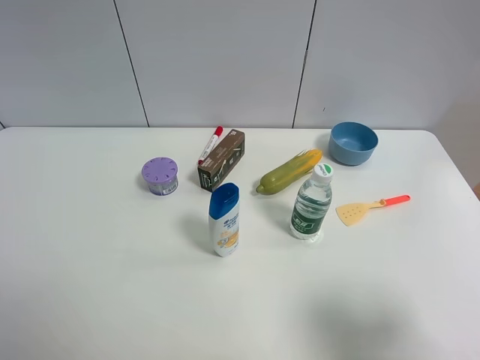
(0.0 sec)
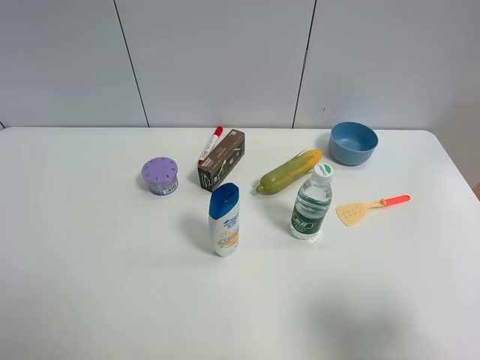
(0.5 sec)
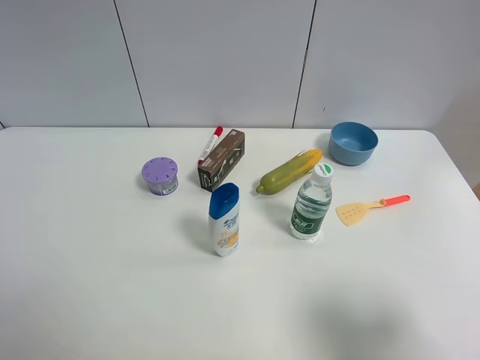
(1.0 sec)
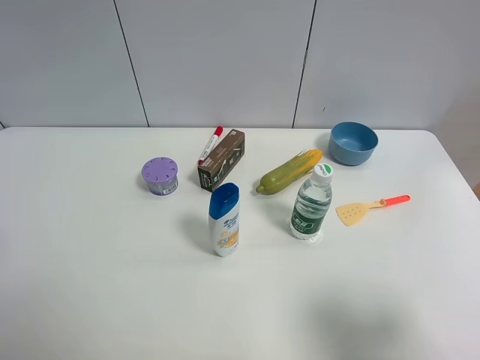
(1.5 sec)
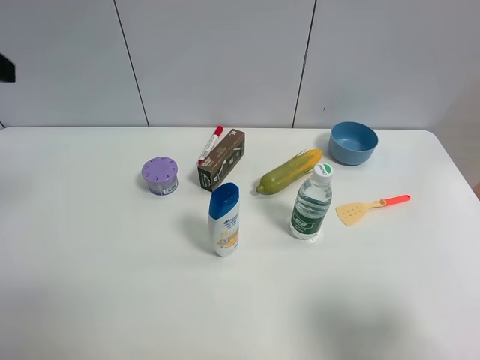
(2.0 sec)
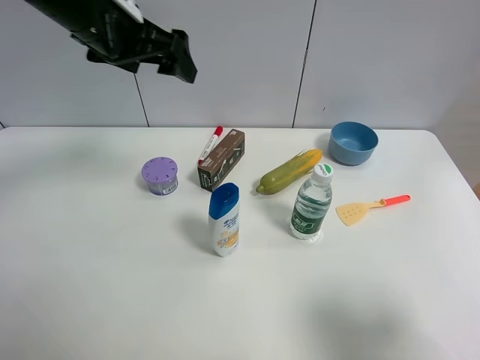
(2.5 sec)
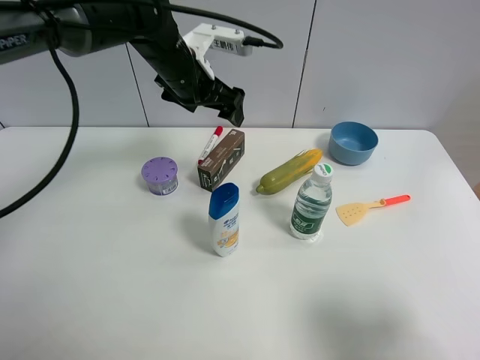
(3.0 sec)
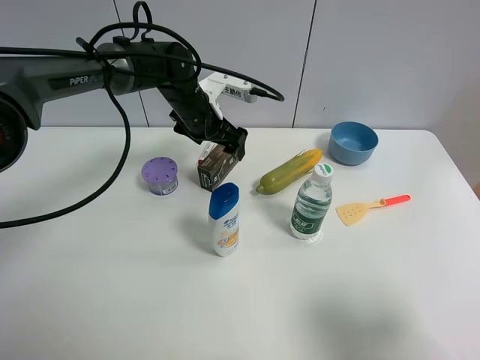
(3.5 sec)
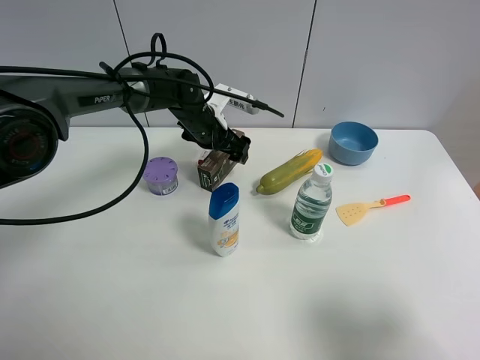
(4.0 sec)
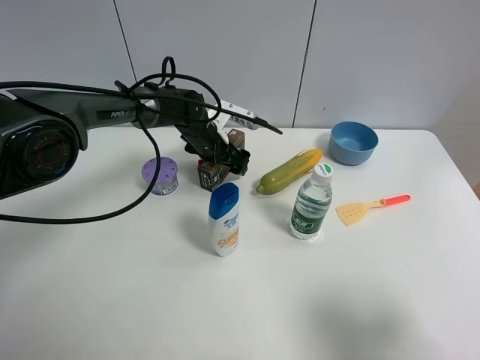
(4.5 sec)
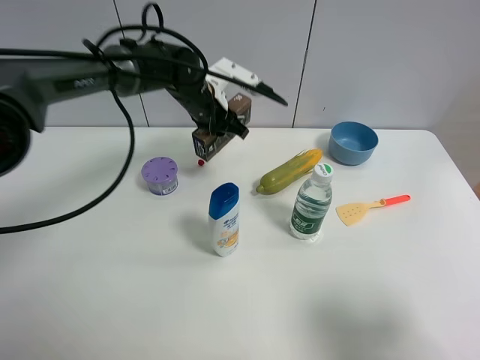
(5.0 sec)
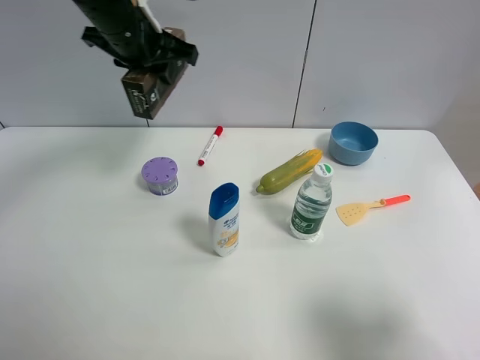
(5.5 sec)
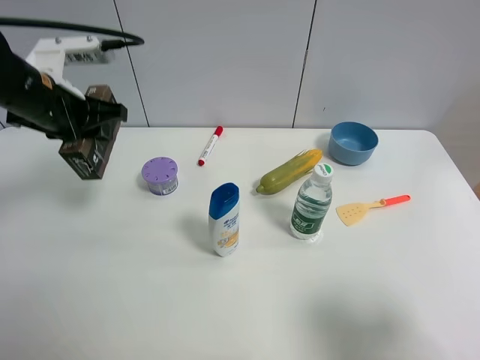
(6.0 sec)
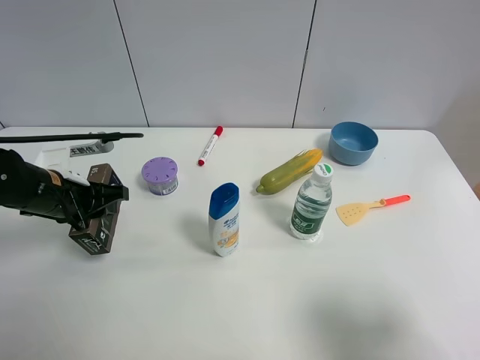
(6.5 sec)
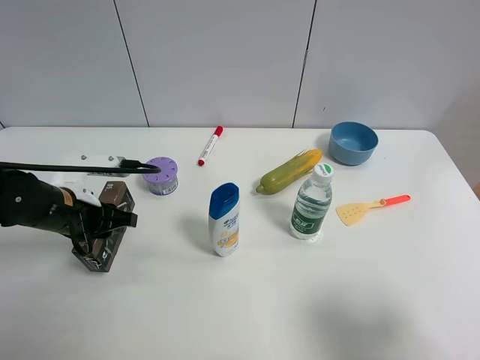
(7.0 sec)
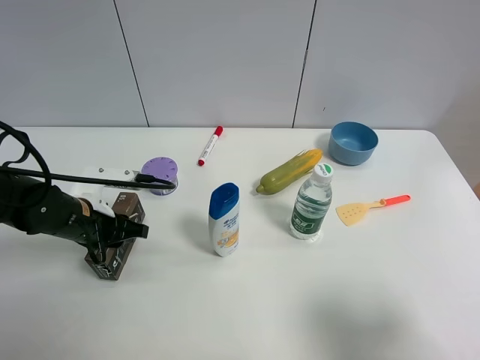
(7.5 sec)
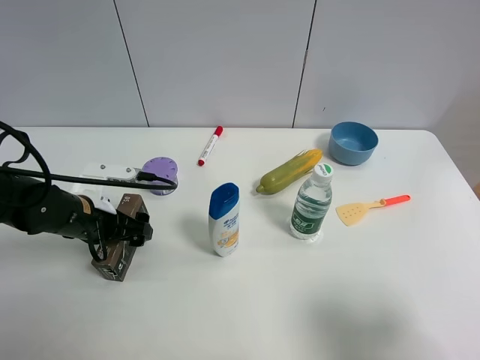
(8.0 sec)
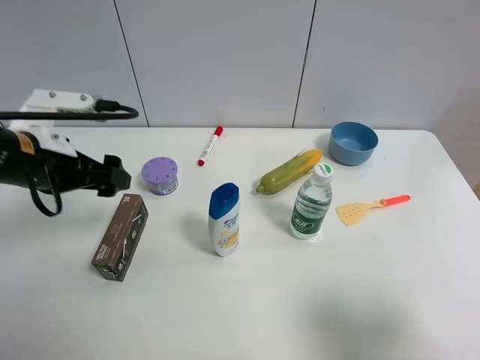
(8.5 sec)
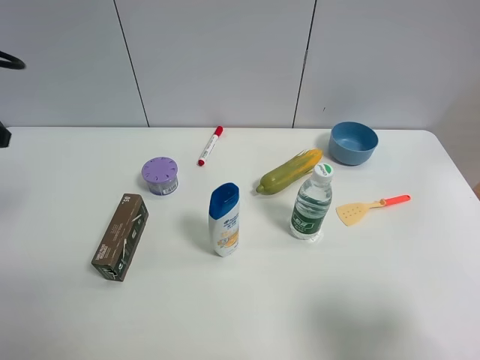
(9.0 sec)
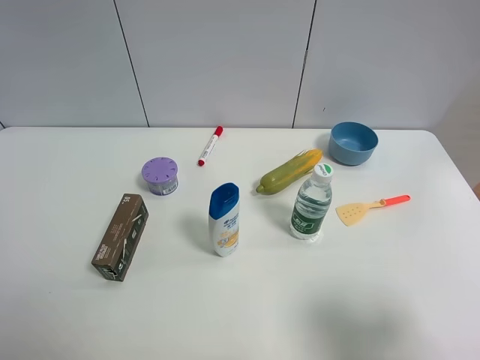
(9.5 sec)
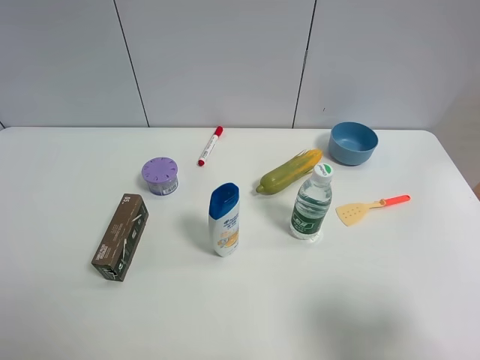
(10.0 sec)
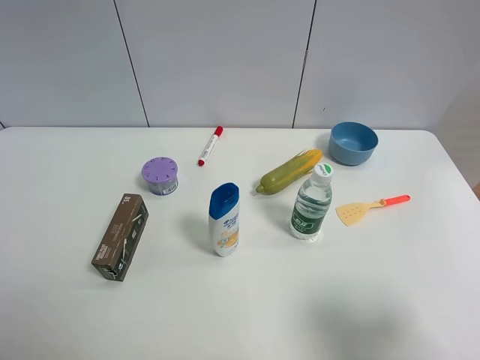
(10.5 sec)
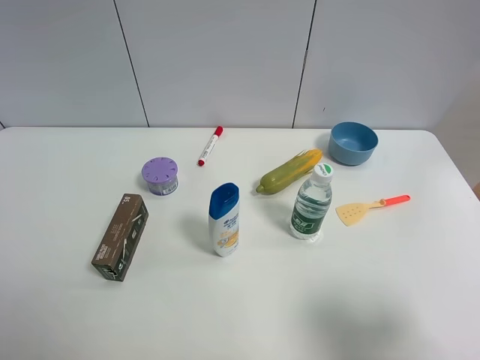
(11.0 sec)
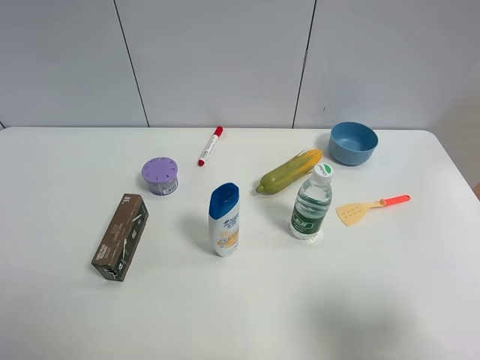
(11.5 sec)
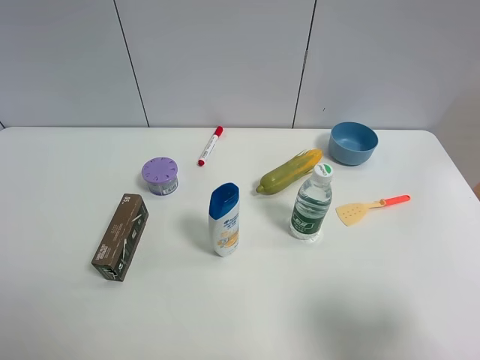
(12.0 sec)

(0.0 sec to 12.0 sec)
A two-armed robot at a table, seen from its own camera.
Task of the whole recording: the gripper move the object.
Step, 0.0 sec - 4.5 sec: Grasp the brown box with the left gripper.
Step, 5.0 sec - 7.5 sec: Place the brown box on the table with the left gripper.
2.0 sec - 4.0 sec: The left gripper heads downward, to the right and forward, covering approximately 40 cm.
4.0 sec - 6.0 sec: The left gripper moves to the left, backward and upward, roughly 25 cm, and closes its fingers.
6.0 sec - 8.0 sec: The left gripper heads downward and backward, covering approximately 15 cm, and opens.
8.0 sec - 10.0 sec: The left gripper shifts roughly 40 cm backward and upward.

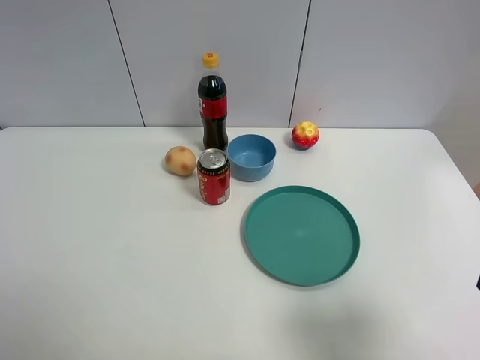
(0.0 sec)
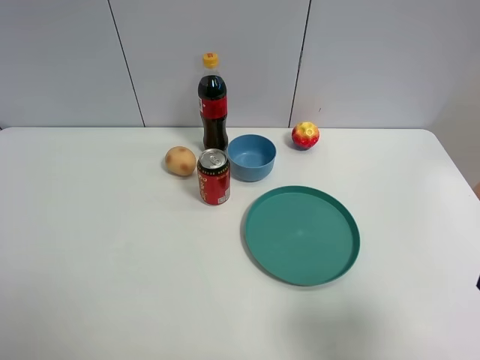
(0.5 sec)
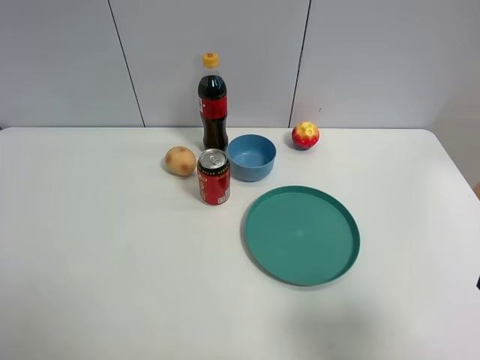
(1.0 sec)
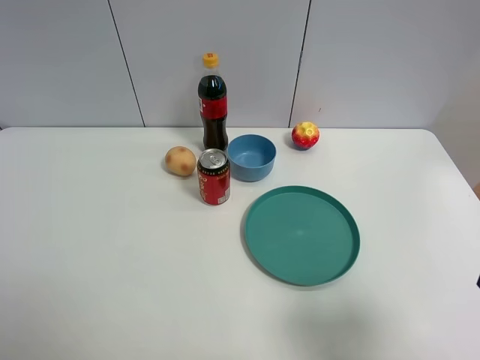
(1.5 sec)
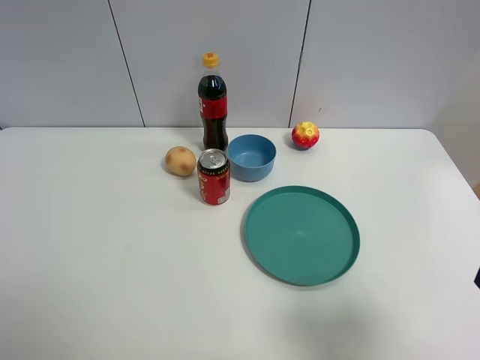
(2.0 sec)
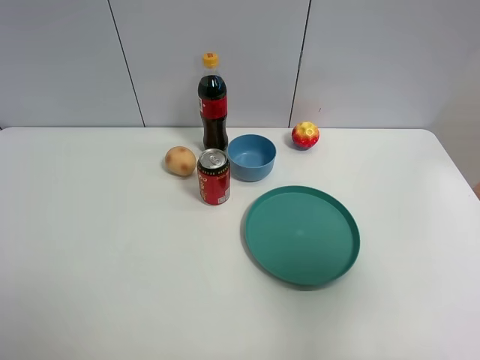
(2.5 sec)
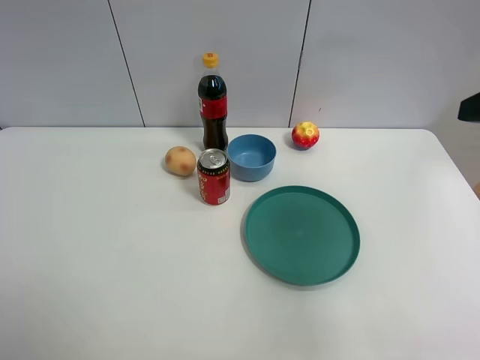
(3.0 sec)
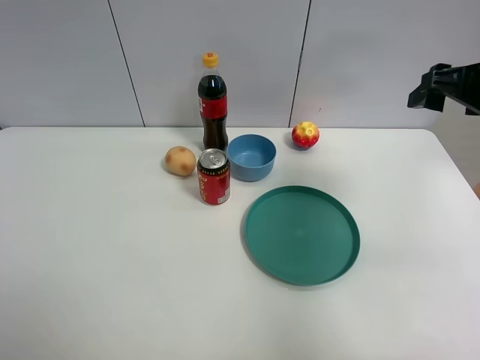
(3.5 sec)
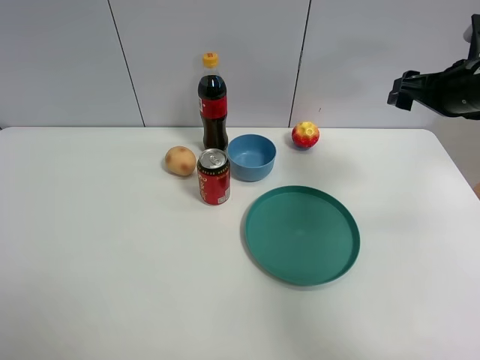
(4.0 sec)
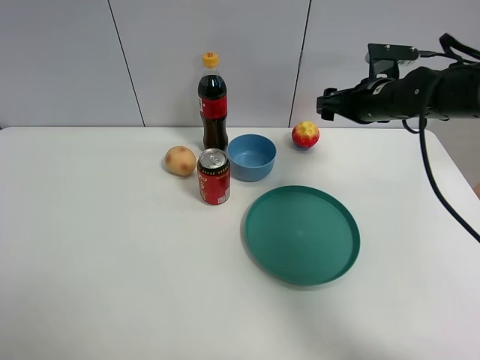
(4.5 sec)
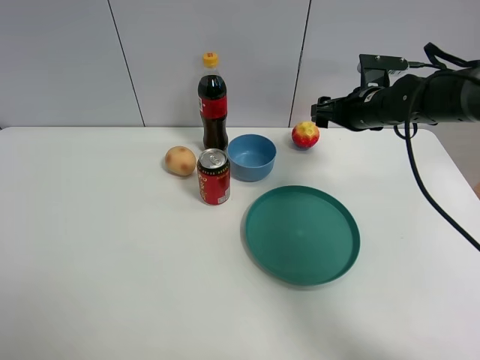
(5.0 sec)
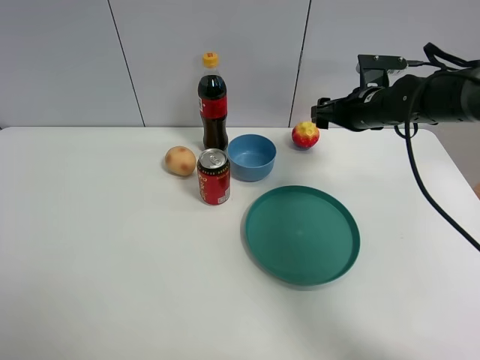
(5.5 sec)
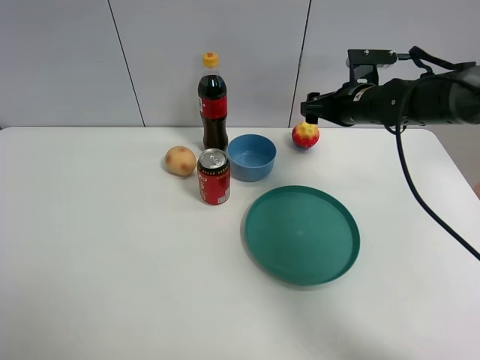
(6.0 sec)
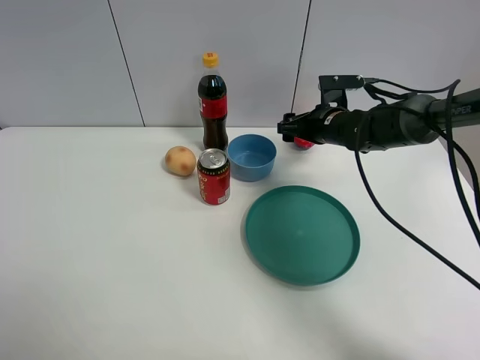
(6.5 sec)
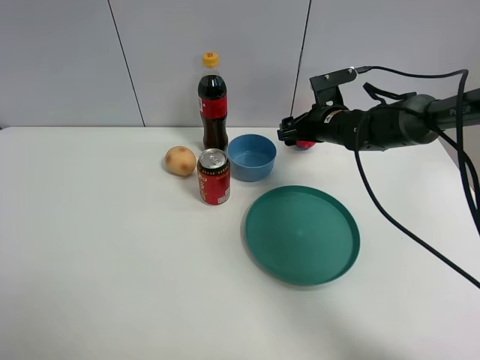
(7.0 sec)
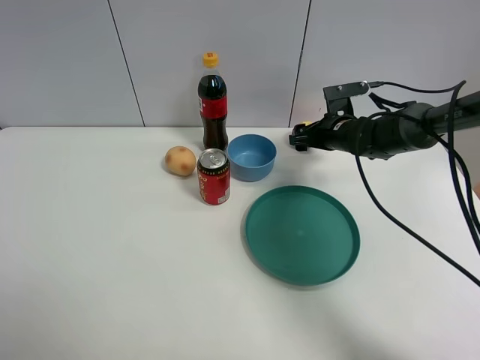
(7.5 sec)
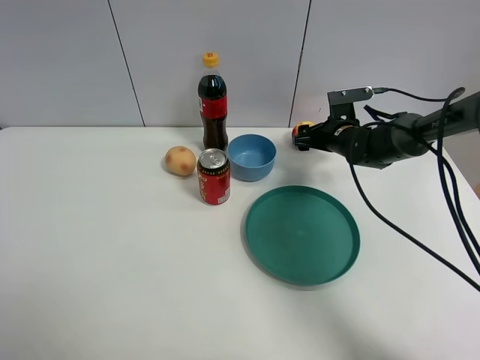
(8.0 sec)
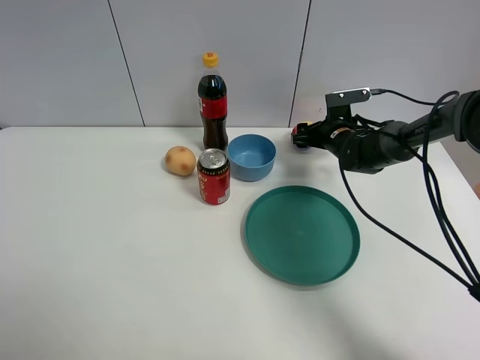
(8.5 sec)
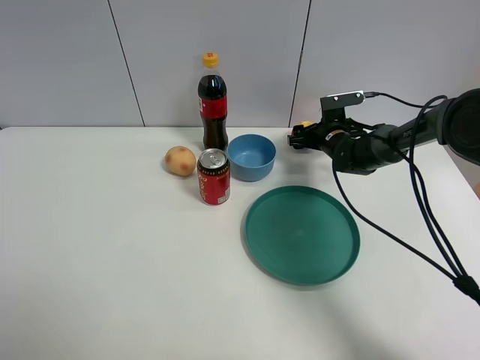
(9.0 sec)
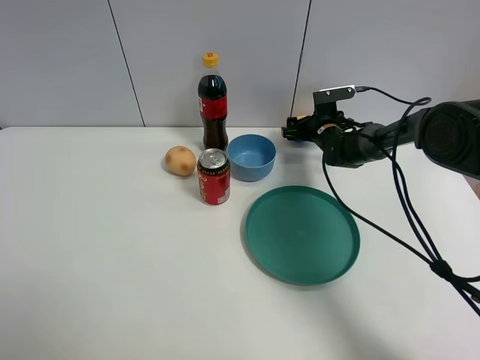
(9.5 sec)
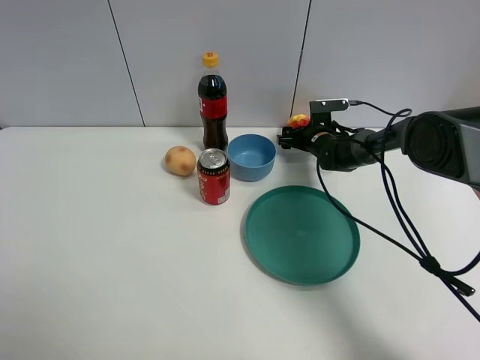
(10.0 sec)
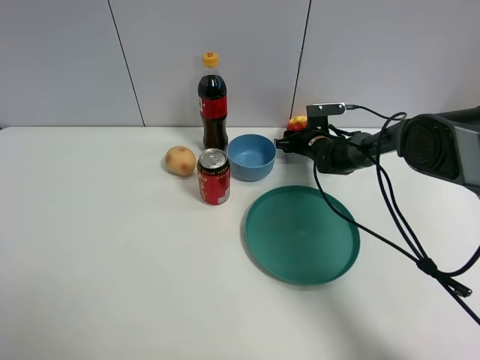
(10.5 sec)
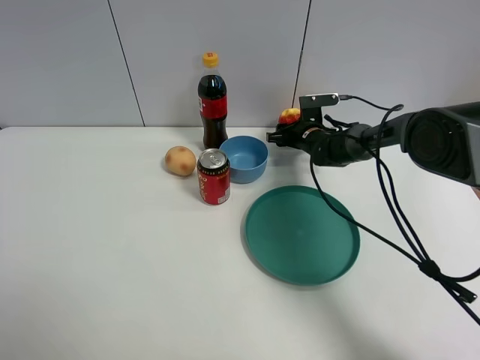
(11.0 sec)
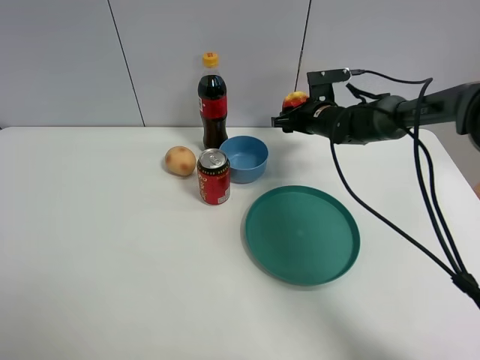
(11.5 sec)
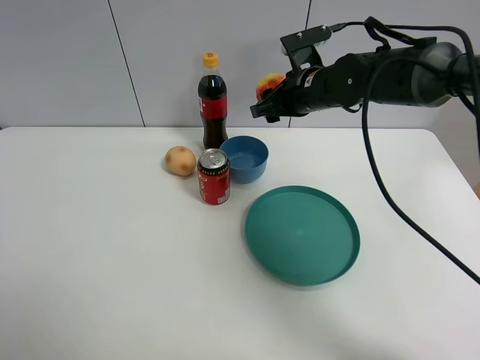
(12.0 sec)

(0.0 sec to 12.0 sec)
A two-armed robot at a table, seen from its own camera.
Task of the whole recording: the gripper move the object.
Step, 0.0 sec - 10.0 sec: Grasp the colorful ball with the right gripper.
0.0 sec - 2.0 sec: Neither gripper changes place.
2.0 sec - 4.0 sec: The right gripper shifts approximately 35 cm forward.
4.0 sec - 6.0 sec: The right gripper heads to the left, downward and forward, covering roughly 15 cm.
6.0 sec - 8.0 sec: The right gripper goes some 10 cm downward.
8.0 sec - 10.0 sec: The right gripper moves downward and forward, roughly 10 cm.
10.0 sec - 12.0 sec: The right gripper is displaced upward and backward by about 20 cm, and closes its fingers.

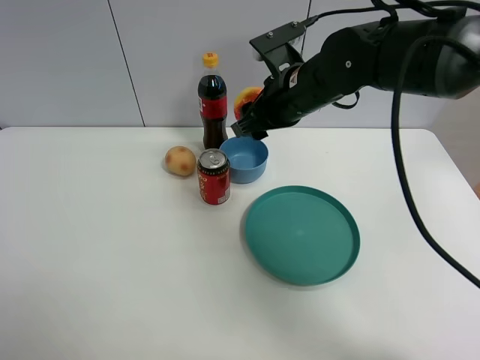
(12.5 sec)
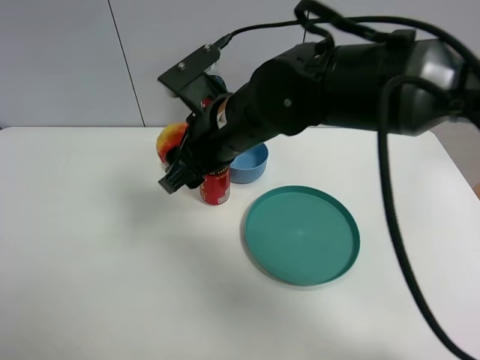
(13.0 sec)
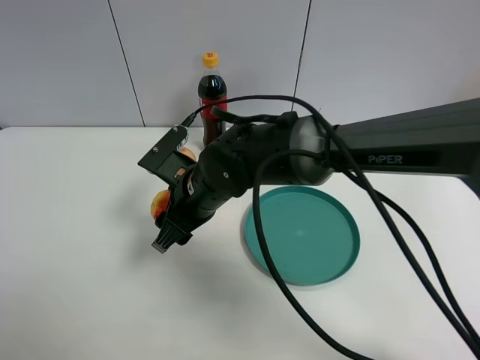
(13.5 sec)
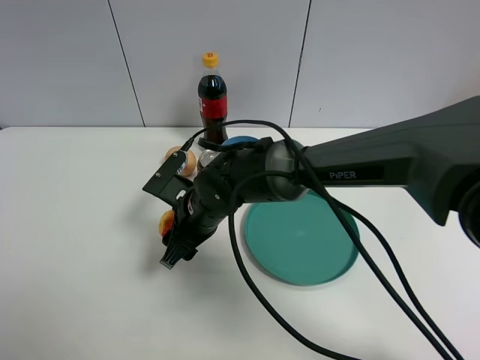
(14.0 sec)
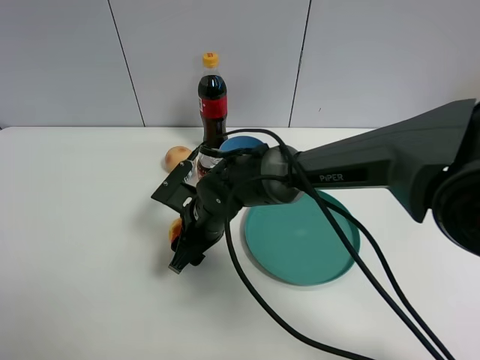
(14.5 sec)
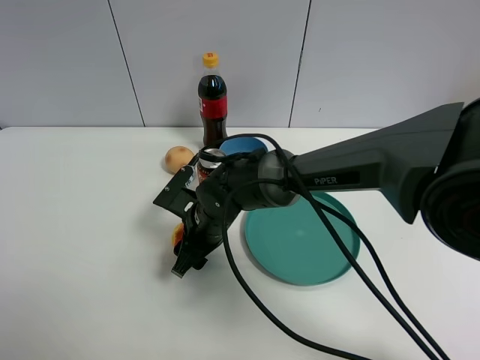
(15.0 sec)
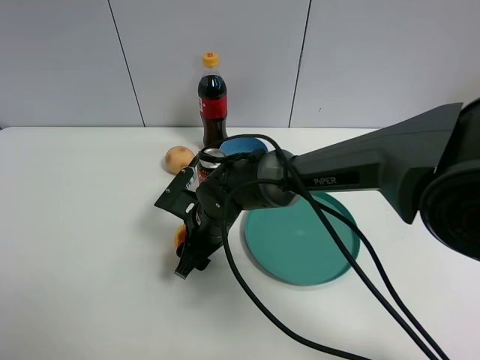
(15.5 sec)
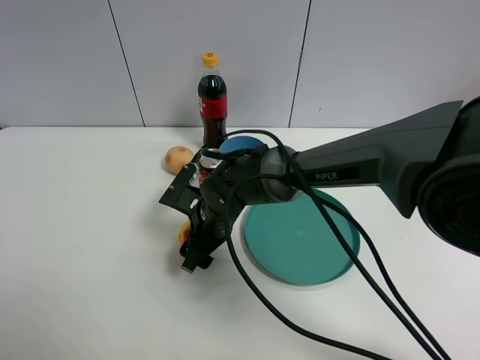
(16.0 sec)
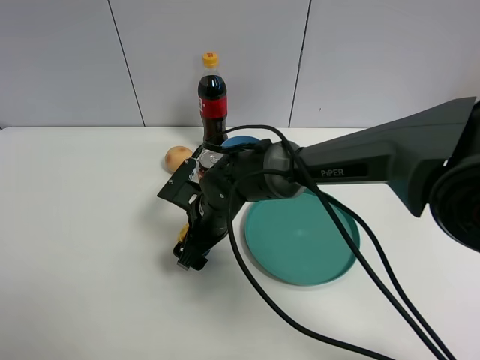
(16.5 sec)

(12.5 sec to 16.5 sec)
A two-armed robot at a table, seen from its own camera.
Task of the whole recording: the gripper move the object.
12.5 sec - 14.5 sec: The right gripper moves downward and to the left, roughly 20 cm.
14.5 sec - 16.5 sec: The right gripper opens its fingers.
